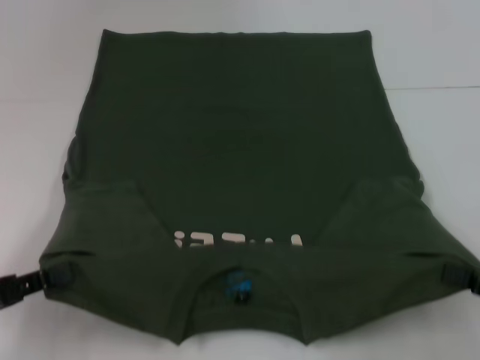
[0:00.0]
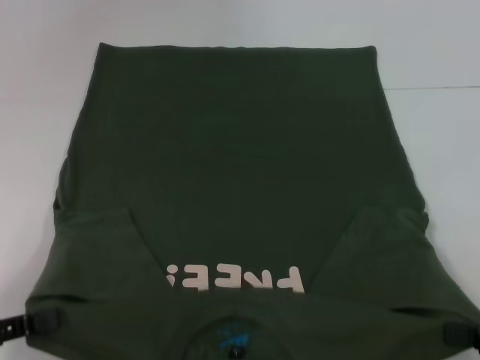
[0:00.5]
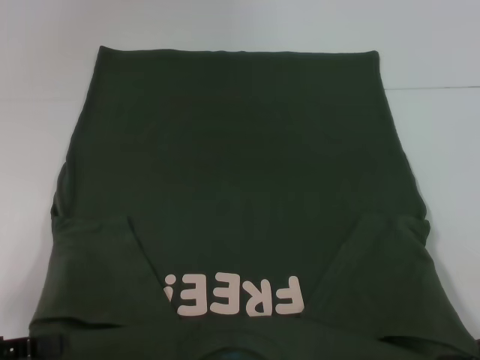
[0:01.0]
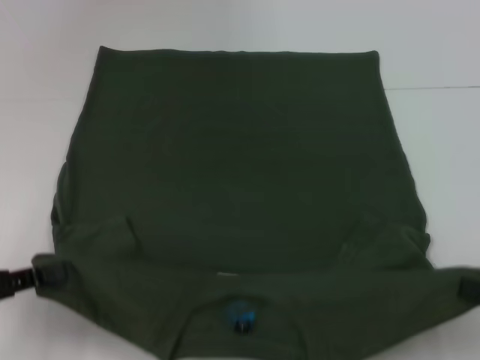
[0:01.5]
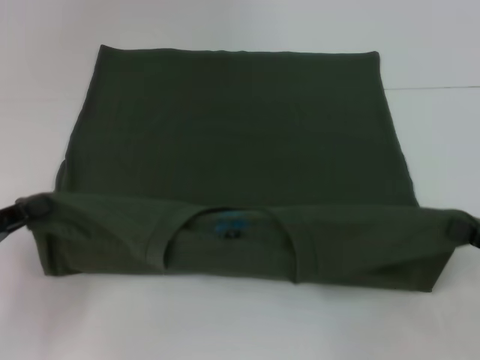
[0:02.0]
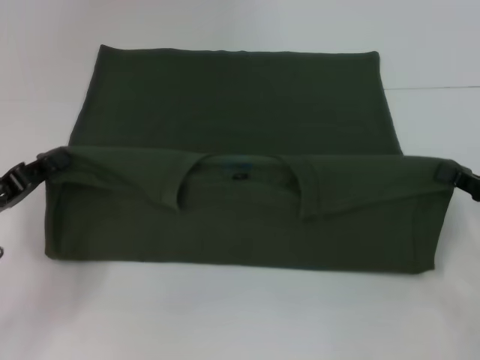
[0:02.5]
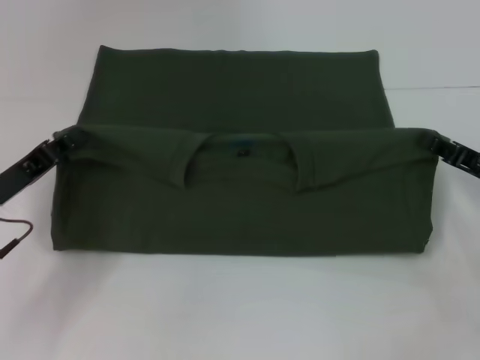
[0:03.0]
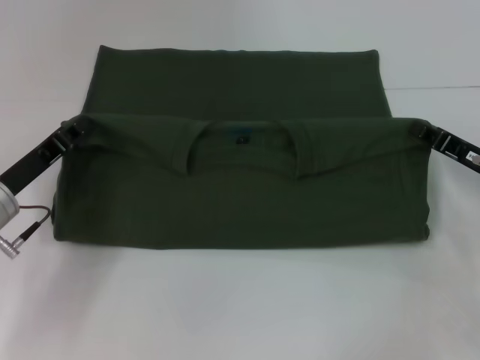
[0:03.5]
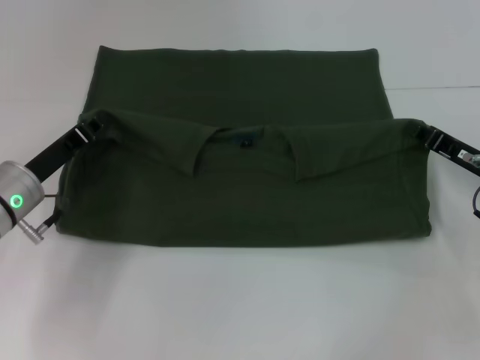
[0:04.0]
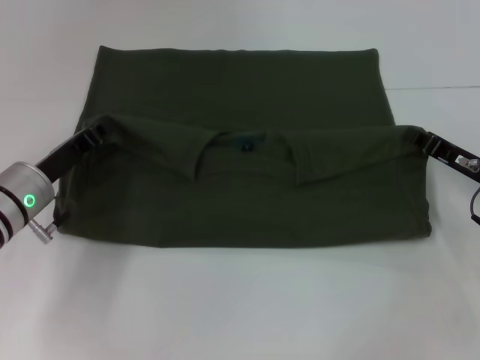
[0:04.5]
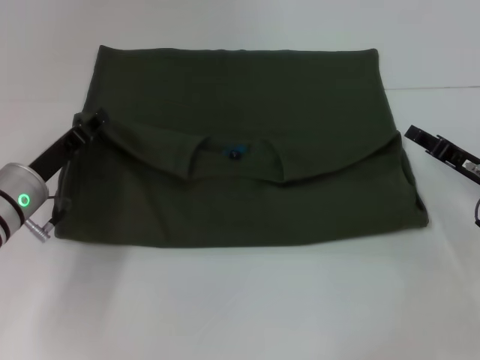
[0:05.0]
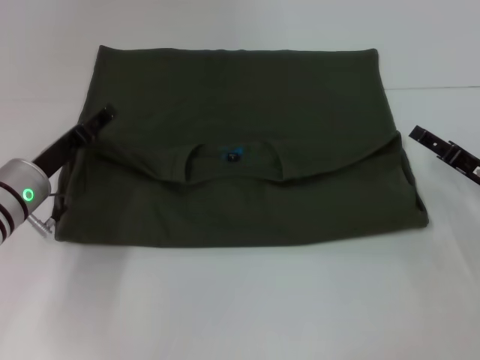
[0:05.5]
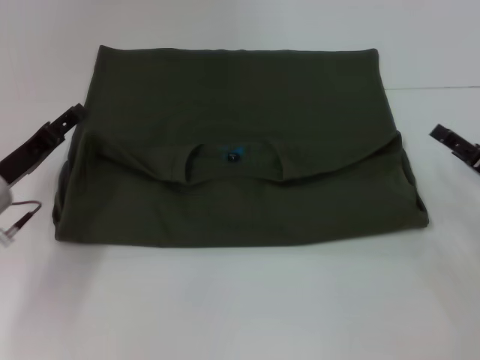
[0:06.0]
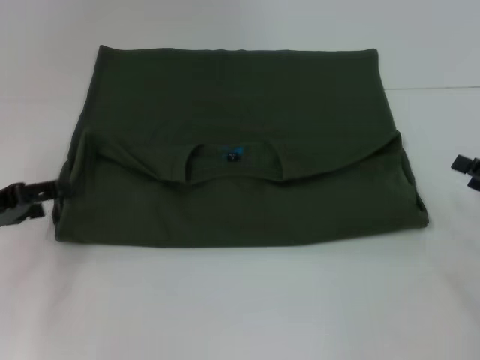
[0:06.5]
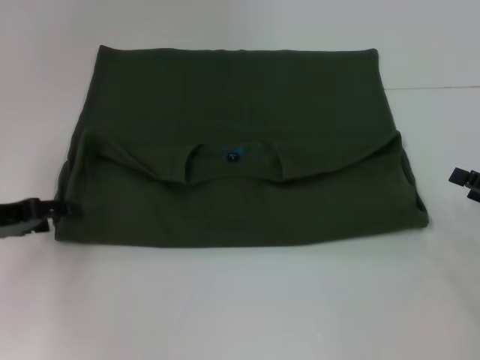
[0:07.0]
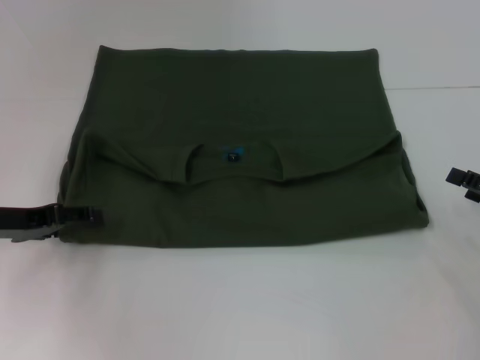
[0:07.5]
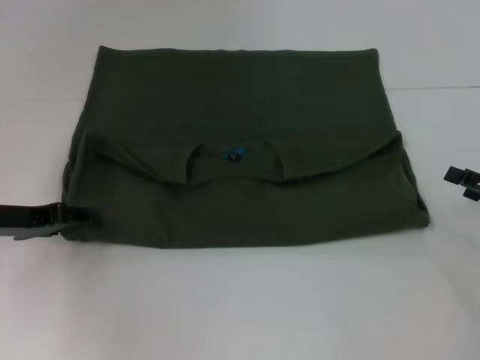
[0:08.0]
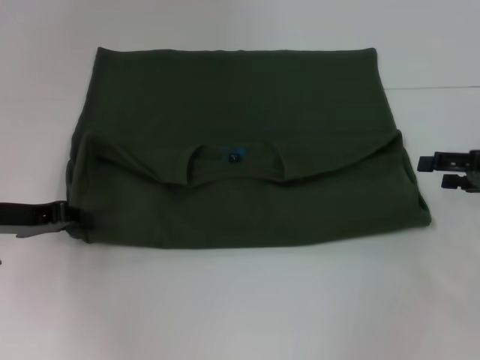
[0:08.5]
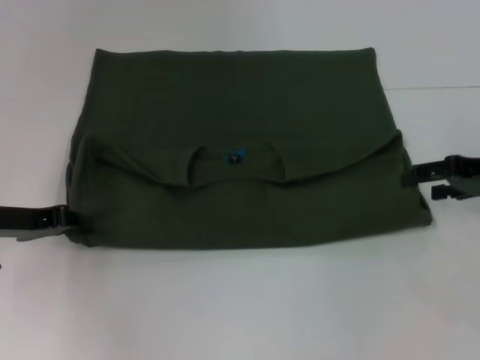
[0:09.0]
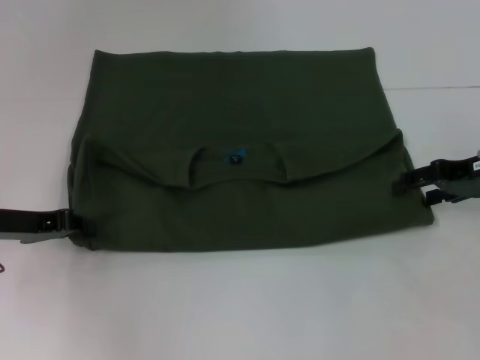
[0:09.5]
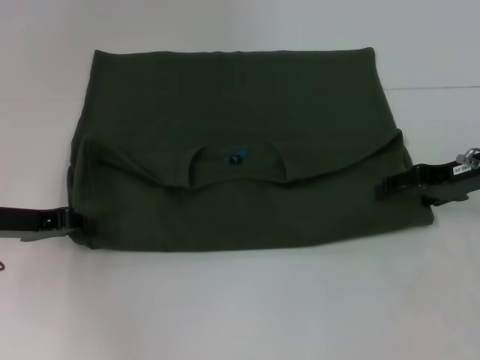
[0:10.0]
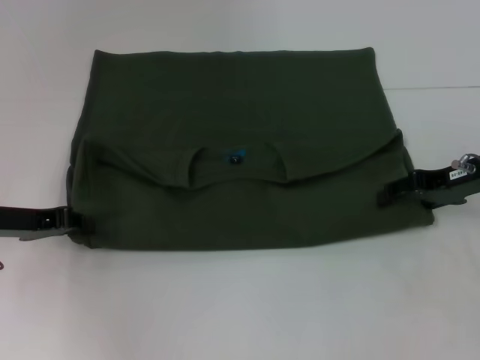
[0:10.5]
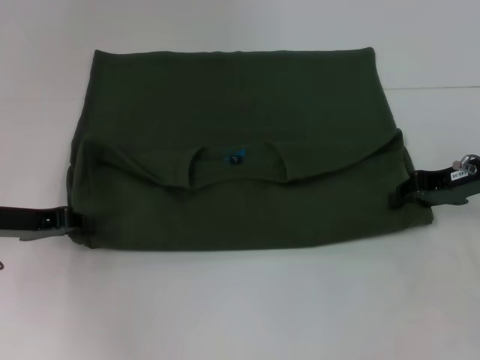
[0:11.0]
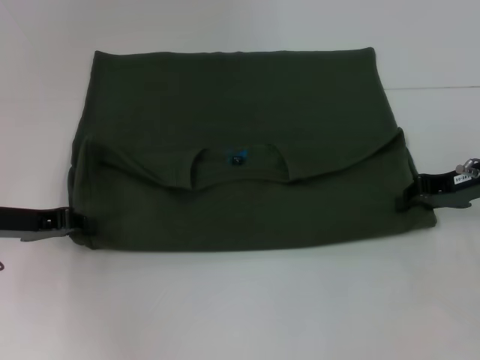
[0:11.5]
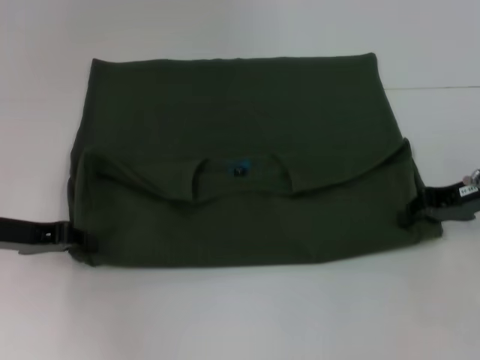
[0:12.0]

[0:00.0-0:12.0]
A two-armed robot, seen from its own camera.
Step, 0:00.0 to 0:05.5: Fold the clothes with your left hand.
Step, 0:00.0 to 0:05.5: Fold the clothes with your right hand.
0:02.0 to 0:04.0: The right gripper shifts about 15 cm forward and to the left. Meanwhile the left gripper moves forward and to the right, roughly 15 cm.
0:04.0 to 0:06.0: The right gripper opens. The left gripper opens its fingers.
0:06.0 to 0:08.0: The right gripper shifts by some 5 cm.
0:08.0 to 0:10.0: The right gripper travels forward, to the left and upward by roughly 15 cm. The left gripper closes up.
0:10.0 to 0:12.0: The right gripper closes up.

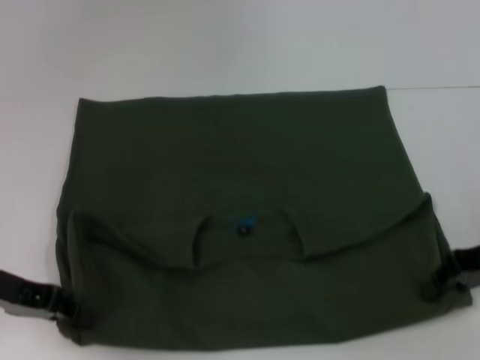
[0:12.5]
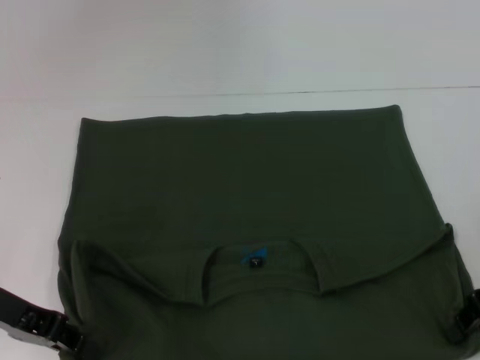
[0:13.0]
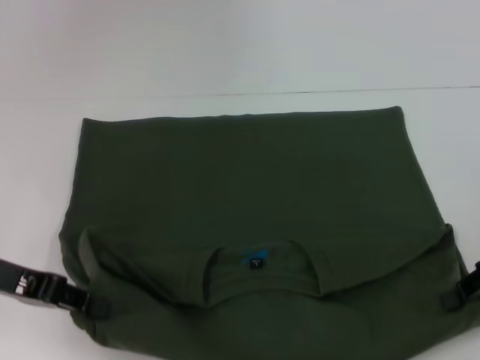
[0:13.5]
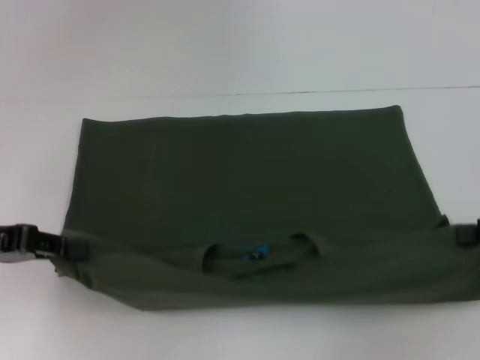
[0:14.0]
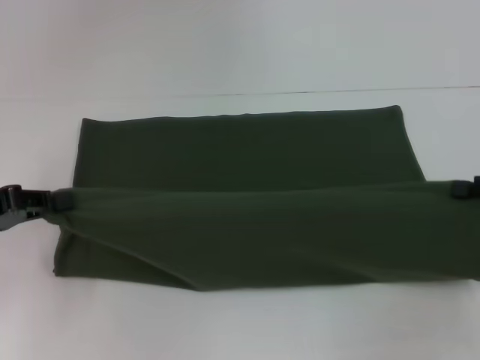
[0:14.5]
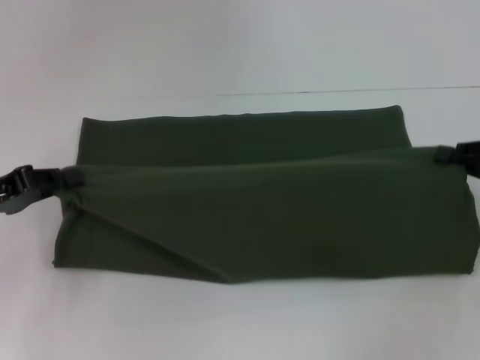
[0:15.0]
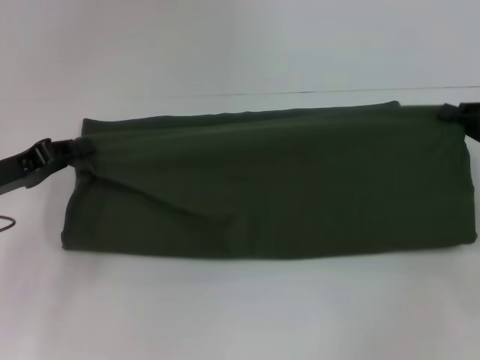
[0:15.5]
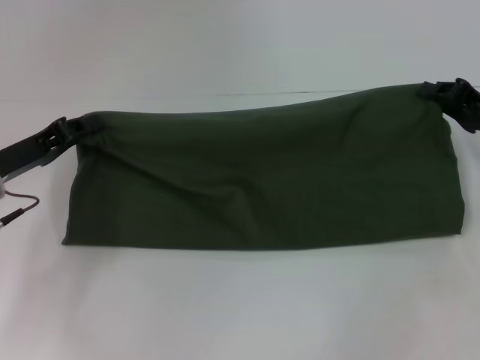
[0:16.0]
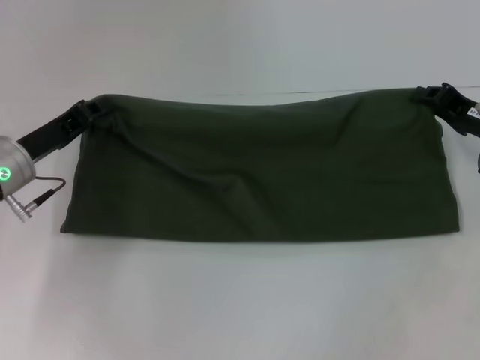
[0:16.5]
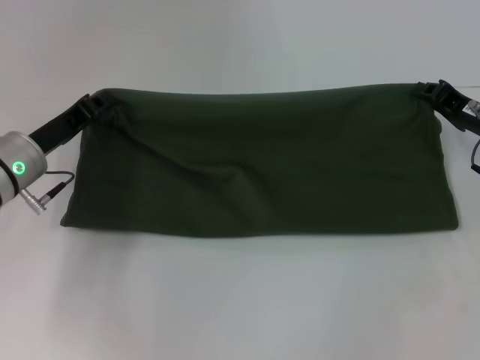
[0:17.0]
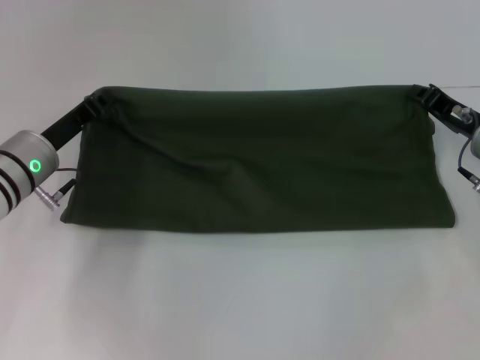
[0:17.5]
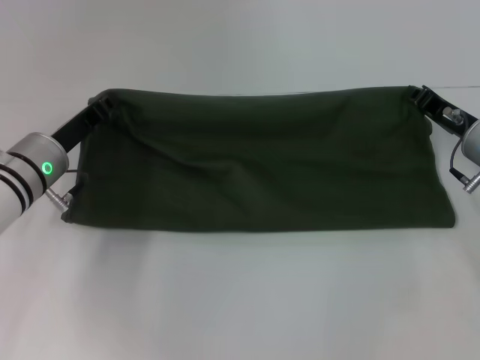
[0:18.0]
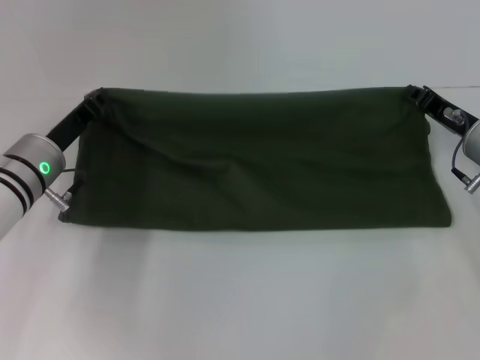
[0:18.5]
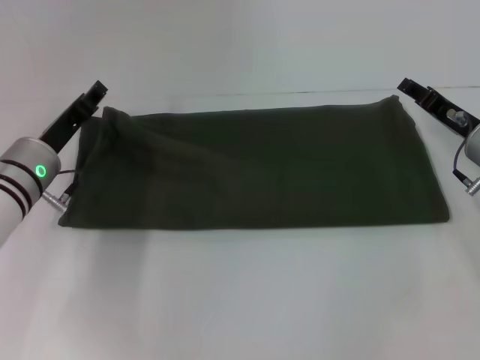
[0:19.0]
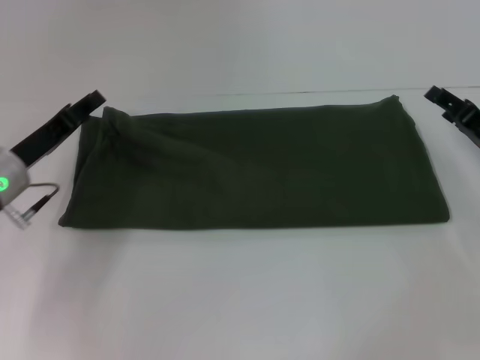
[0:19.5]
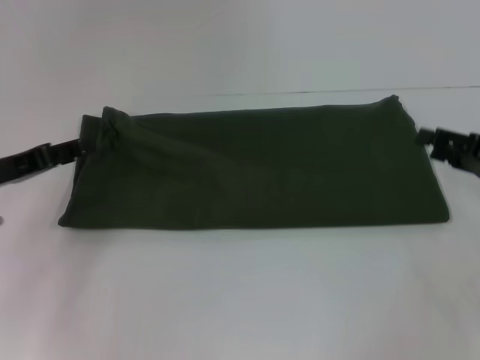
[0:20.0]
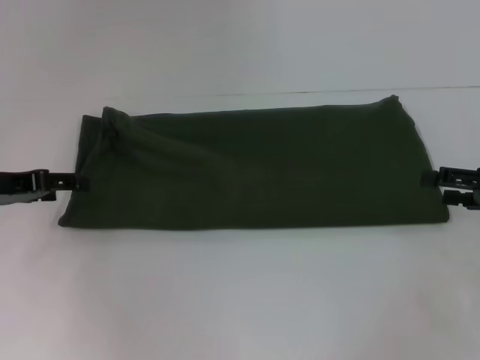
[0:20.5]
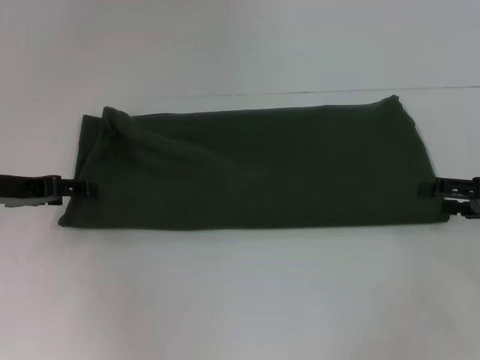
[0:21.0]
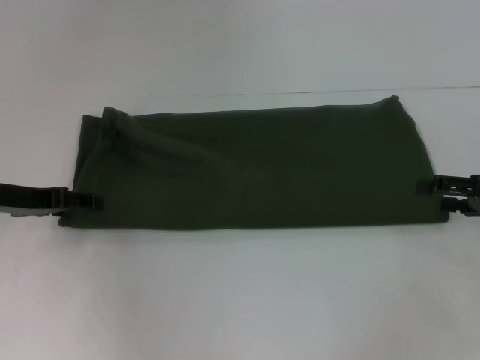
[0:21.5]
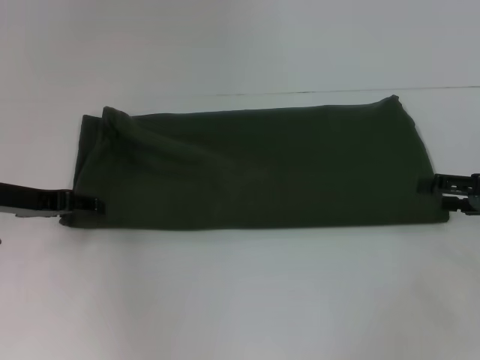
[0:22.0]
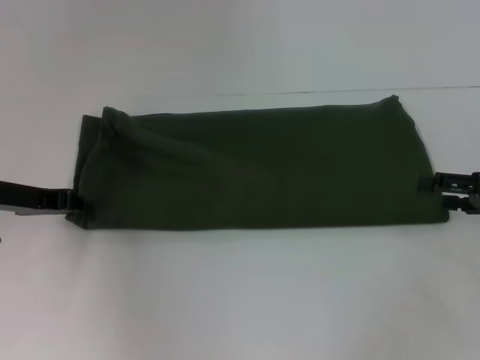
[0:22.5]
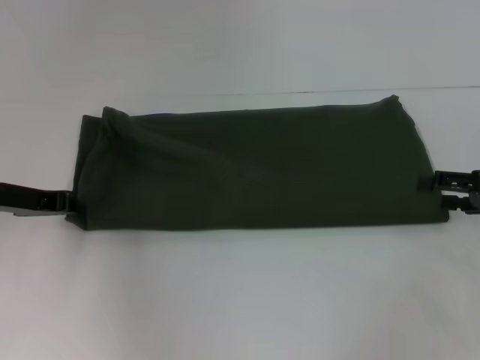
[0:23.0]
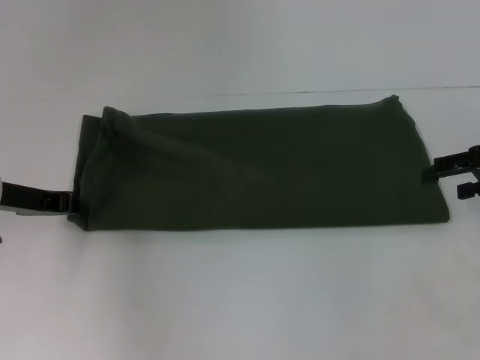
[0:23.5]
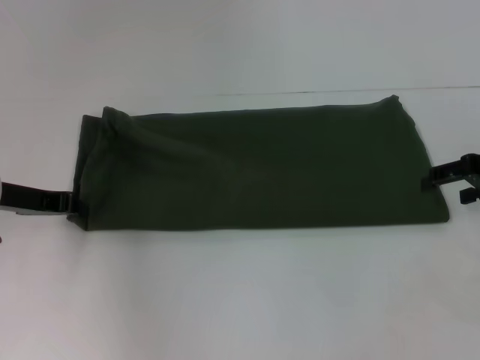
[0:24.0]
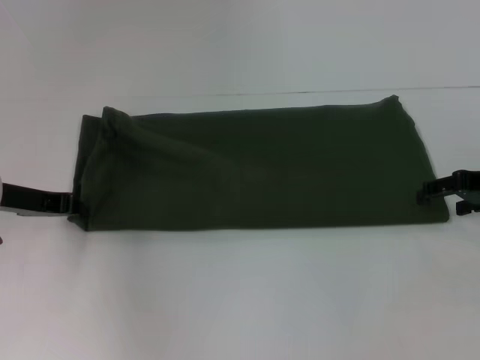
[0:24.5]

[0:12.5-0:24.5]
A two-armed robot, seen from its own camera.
Step, 0:13.5 to 0:18.5: Fold the clothes with your right hand.
0:12.5 to 0:14.5: The right gripper is displaced to the right by about 5 cm.
0:14.5 to 0:16.5: The left gripper shifts about 10 cm to the right and forward; the right gripper heads forward and to the left, covering approximately 10 cm.
0:16.5 to 0:18.5: The grippers make only small movements.
0:18.5 to 0:20.5: The right gripper shifts roughly 10 cm to the right and backward, and opens its fingers, while the left gripper moves to the left and upward, roughly 10 cm, and opens its fingers.
0:20.5 to 0:22.5: The left gripper closes its fingers.

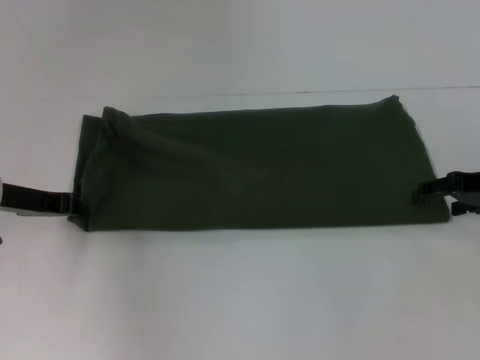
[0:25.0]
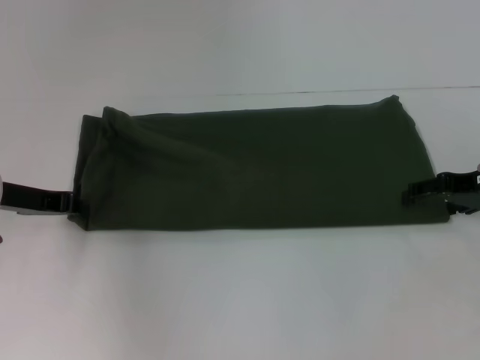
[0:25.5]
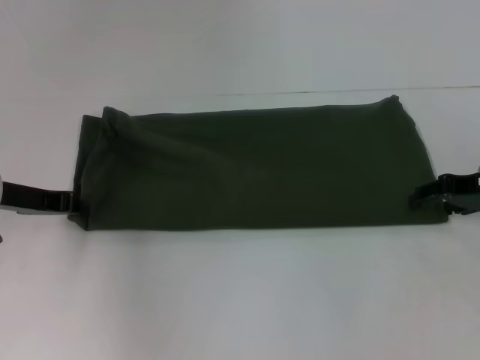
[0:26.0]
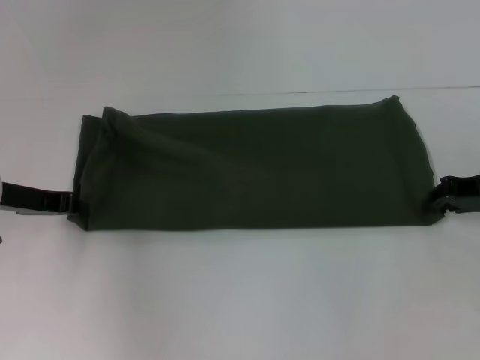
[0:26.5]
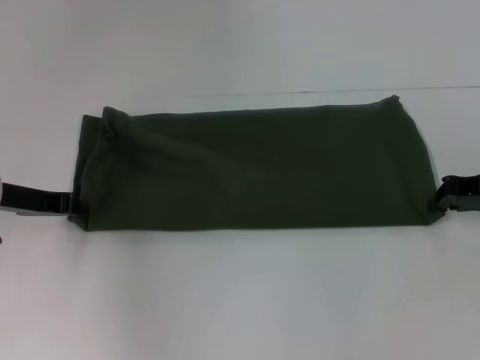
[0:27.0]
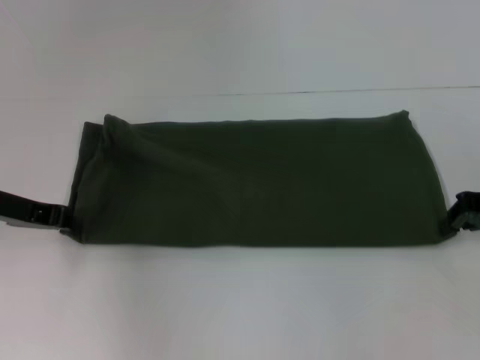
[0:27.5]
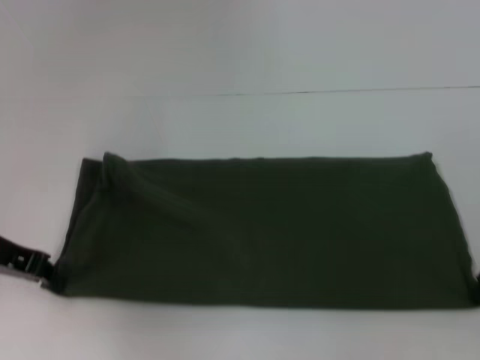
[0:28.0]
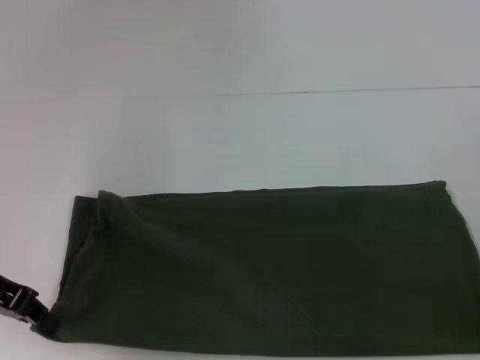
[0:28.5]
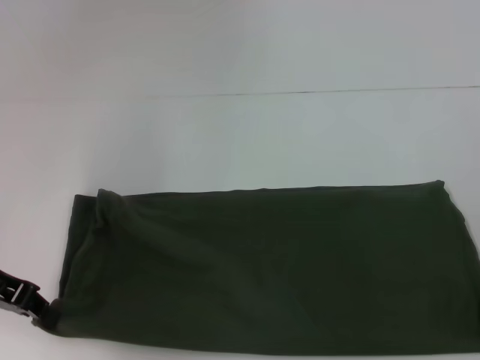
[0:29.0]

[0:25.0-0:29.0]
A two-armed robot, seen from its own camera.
0:25.0 to 0:27.0: The right gripper closes.
0:27.0 to 0:29.0: The two grippers go approximately 5 cm backward.
